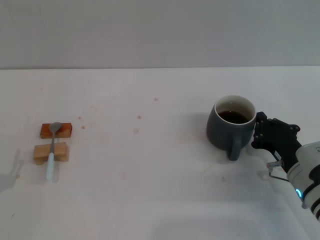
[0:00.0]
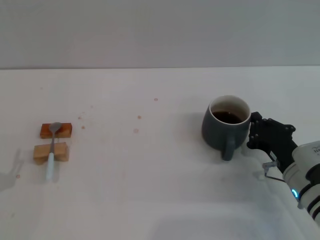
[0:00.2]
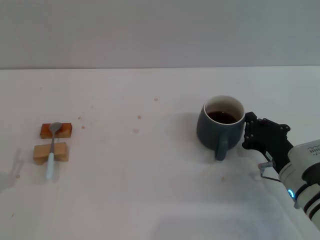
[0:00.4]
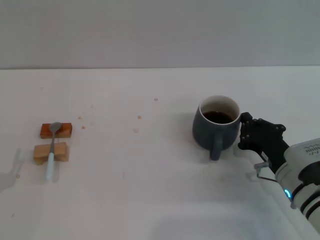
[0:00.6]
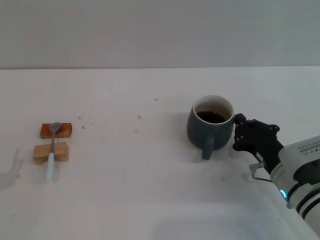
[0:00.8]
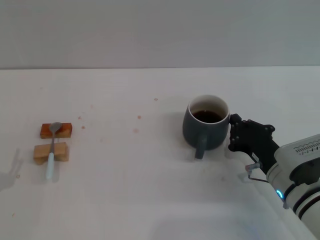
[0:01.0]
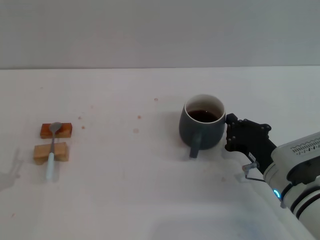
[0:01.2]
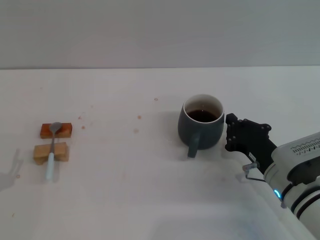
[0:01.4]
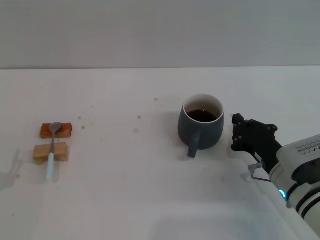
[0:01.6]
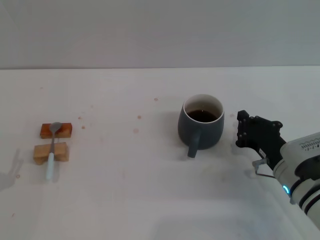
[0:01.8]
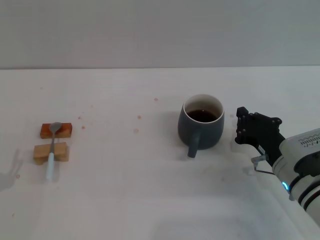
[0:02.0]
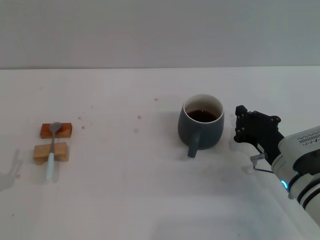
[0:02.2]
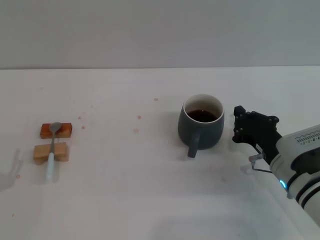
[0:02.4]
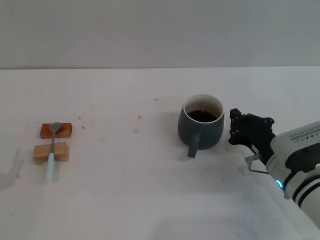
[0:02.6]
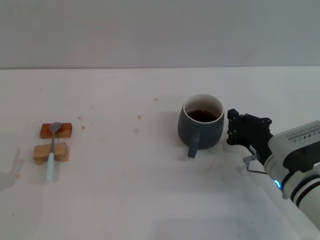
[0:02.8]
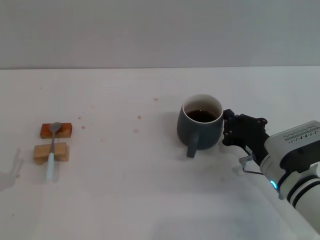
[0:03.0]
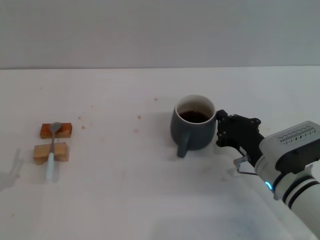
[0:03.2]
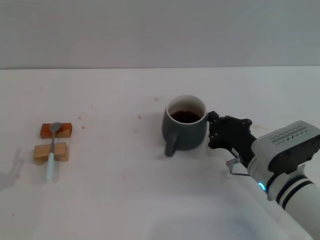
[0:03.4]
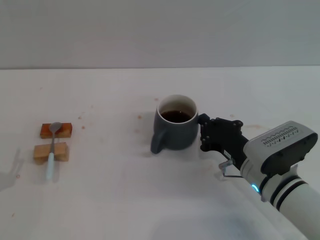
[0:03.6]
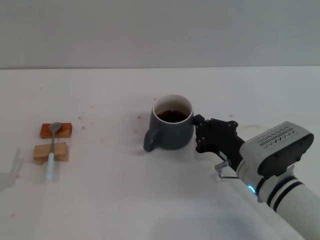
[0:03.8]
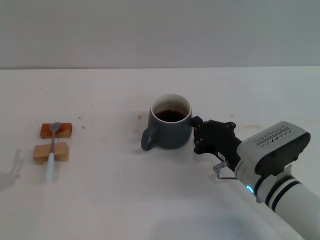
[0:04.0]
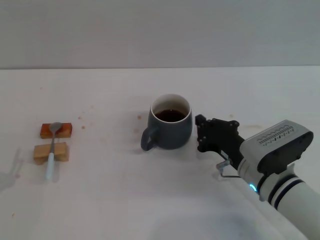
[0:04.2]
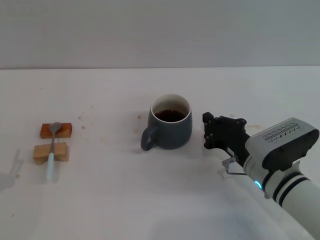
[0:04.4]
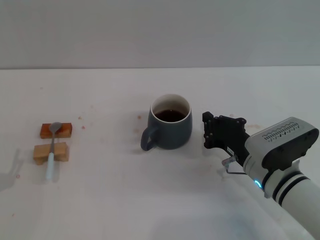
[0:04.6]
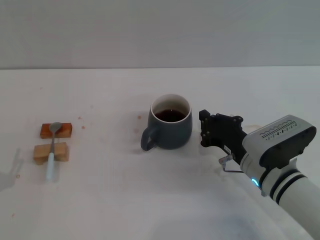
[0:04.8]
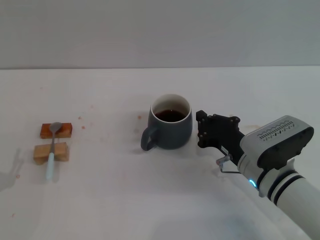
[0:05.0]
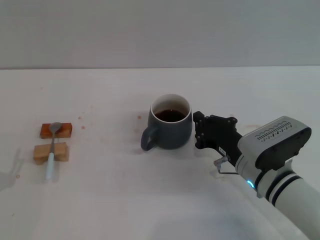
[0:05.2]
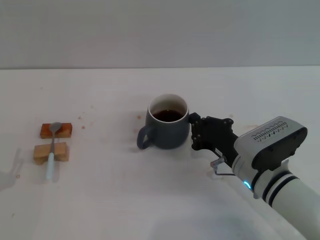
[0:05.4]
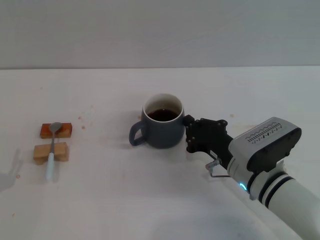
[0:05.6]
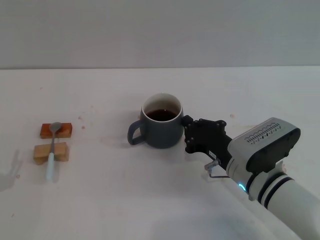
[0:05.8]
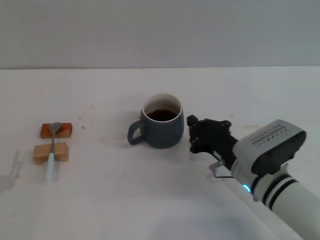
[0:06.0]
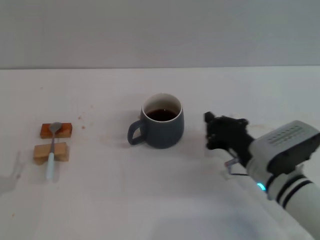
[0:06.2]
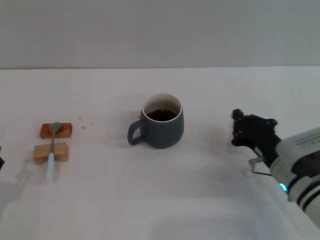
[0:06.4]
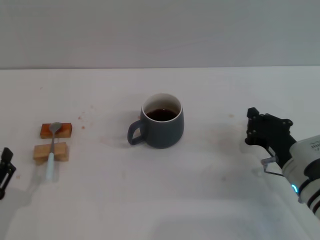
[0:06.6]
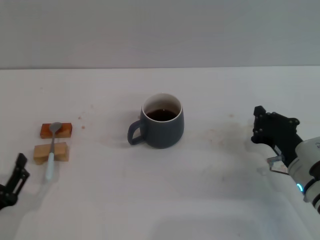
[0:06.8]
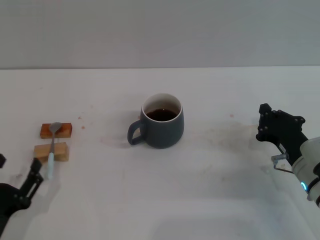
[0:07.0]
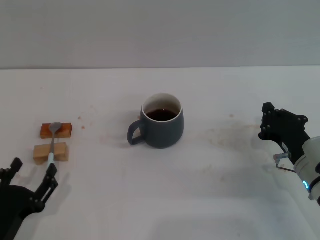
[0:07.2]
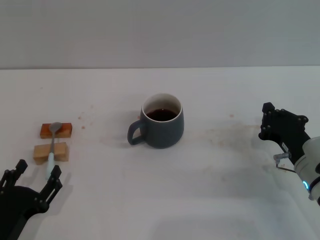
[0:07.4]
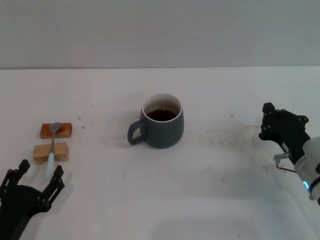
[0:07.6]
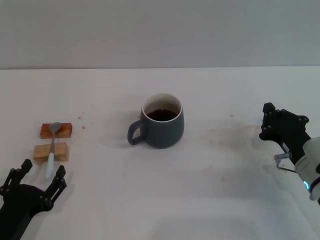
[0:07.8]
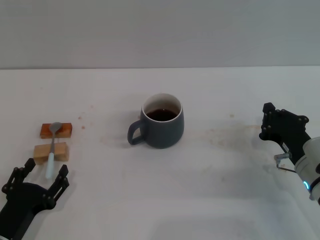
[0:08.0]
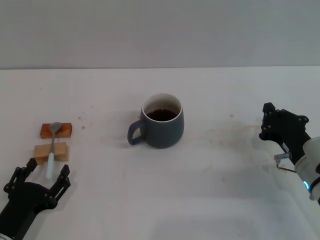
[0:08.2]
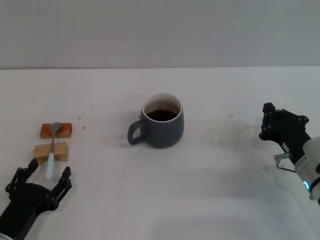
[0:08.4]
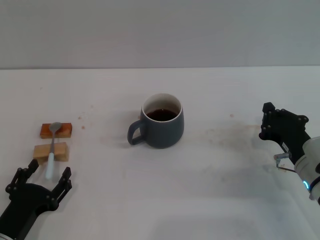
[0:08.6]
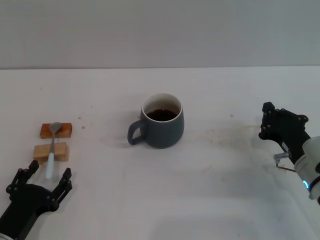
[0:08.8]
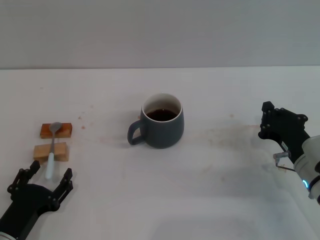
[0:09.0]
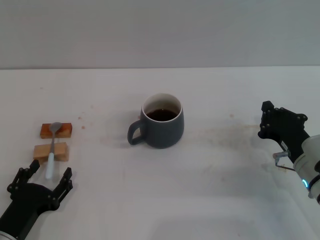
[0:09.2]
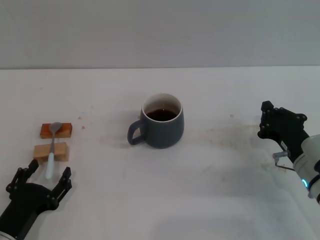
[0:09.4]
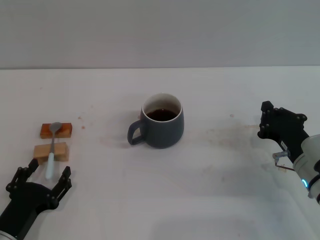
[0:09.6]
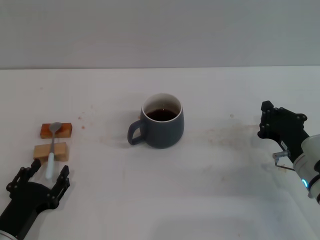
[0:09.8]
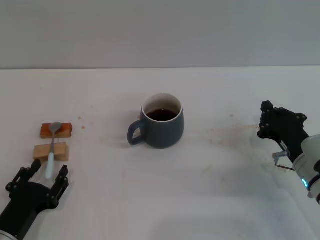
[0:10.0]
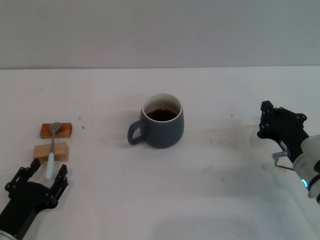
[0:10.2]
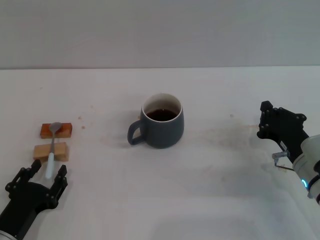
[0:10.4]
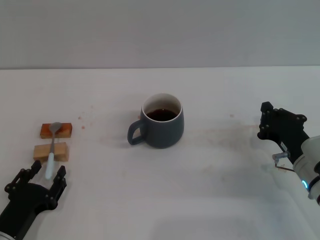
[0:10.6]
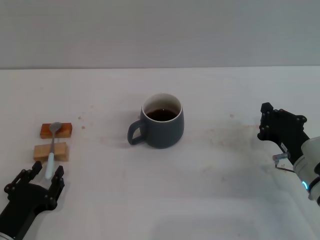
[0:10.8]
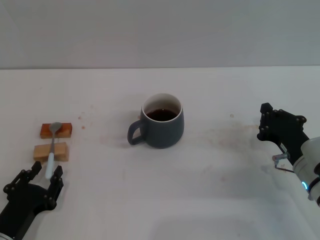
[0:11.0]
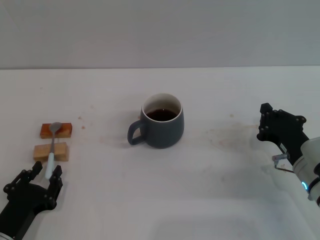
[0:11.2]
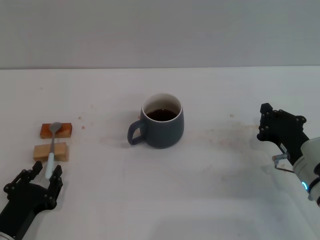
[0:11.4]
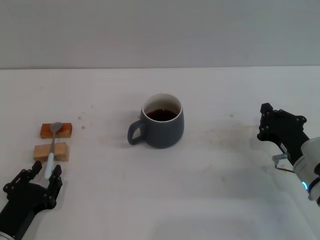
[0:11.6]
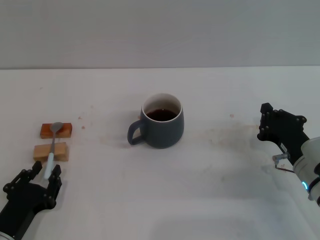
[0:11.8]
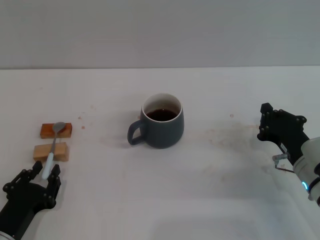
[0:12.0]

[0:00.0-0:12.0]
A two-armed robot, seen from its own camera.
Task of the whole recording: Move the grey cup to the center, lift the blue spoon, stir it three times in the cup, and put the spoon into the cup.
Step, 0:00.0 to 0:06.8: Move the cup with coffee to the center of view with the right gripper.
0:00.0 to 0:03.0: There are only small adjustments of the grippers.
0:03.0 to 0:06.0: There are only small adjustments of the grippers.
0:06.0 to 0:07.6: The two grippers go roughly 5 cm to the right.
0:07.6 to 0:09.0: The grippers move only a little.
0:09.0 to 0:10.4: Both grippers stay about where they are.
0:10.4 to 0:12.0: The left gripper closes its fingers.

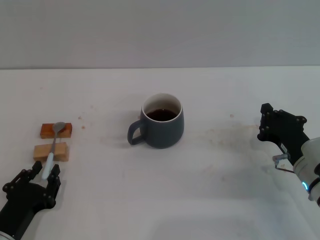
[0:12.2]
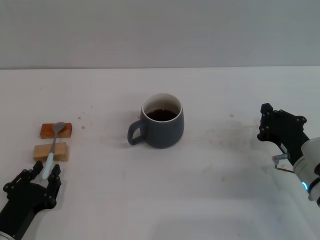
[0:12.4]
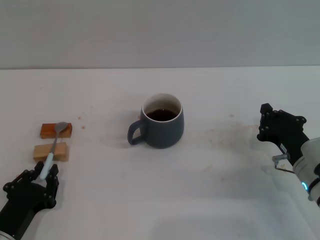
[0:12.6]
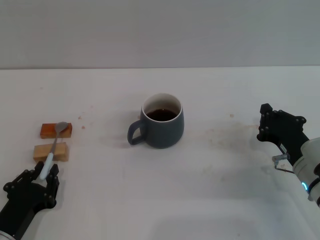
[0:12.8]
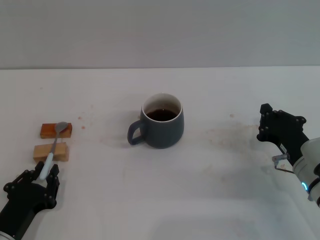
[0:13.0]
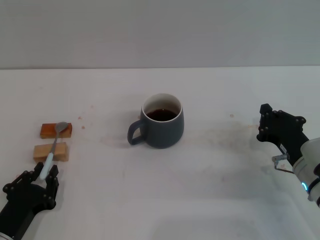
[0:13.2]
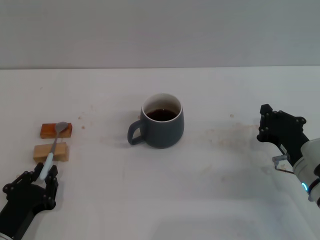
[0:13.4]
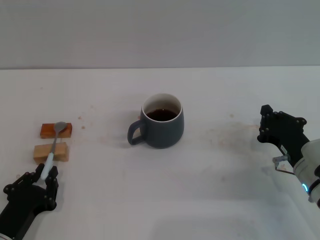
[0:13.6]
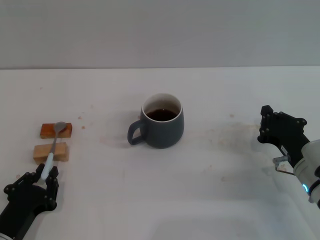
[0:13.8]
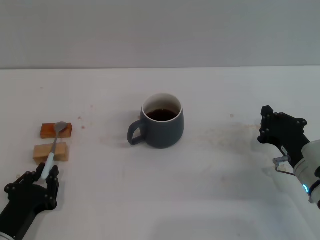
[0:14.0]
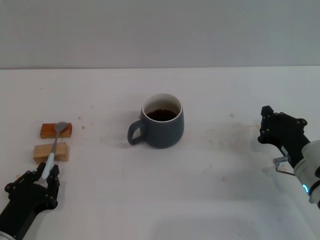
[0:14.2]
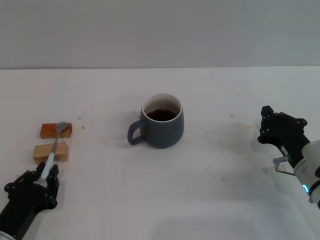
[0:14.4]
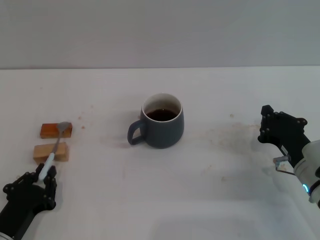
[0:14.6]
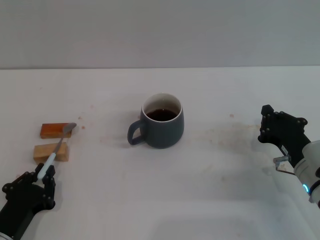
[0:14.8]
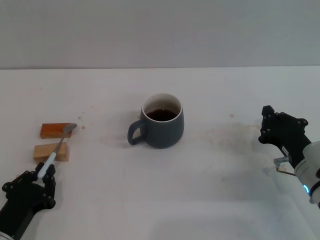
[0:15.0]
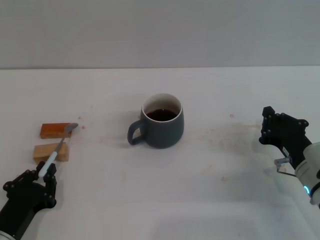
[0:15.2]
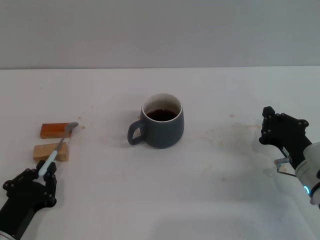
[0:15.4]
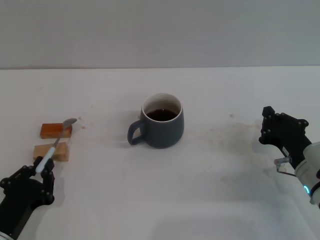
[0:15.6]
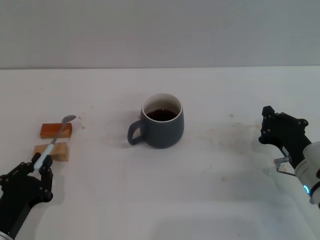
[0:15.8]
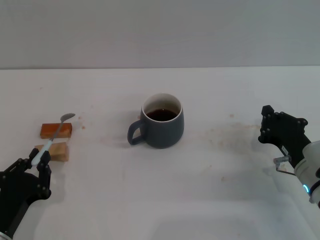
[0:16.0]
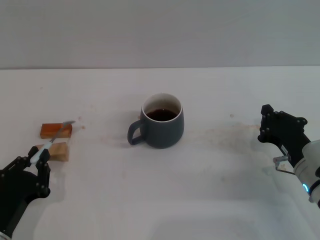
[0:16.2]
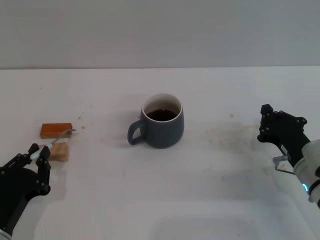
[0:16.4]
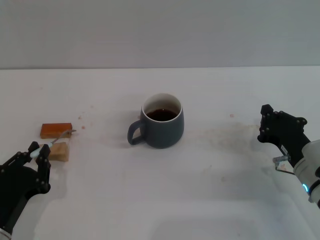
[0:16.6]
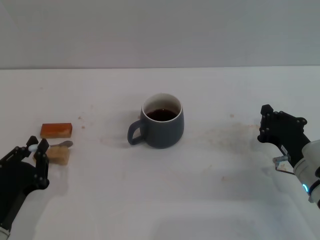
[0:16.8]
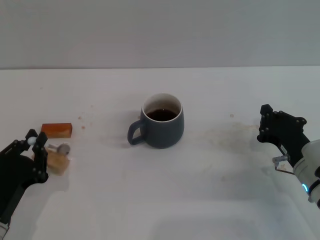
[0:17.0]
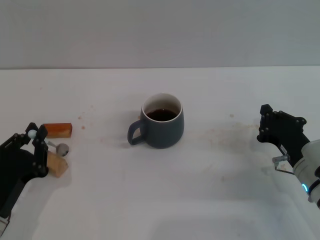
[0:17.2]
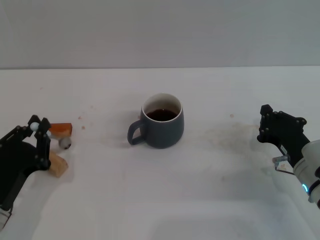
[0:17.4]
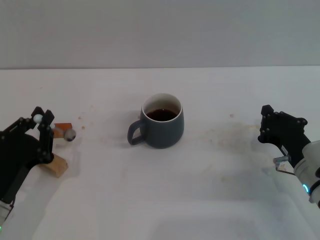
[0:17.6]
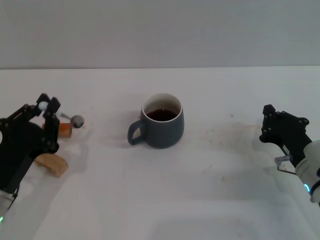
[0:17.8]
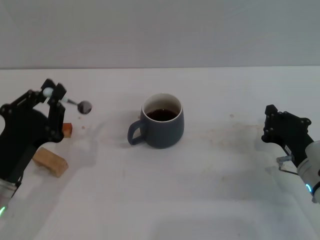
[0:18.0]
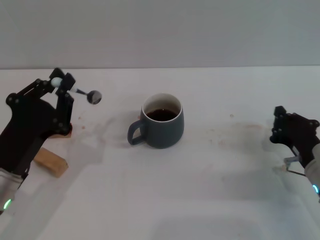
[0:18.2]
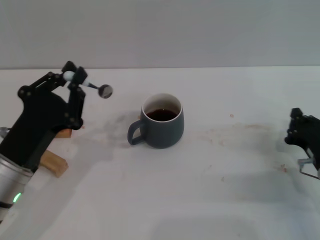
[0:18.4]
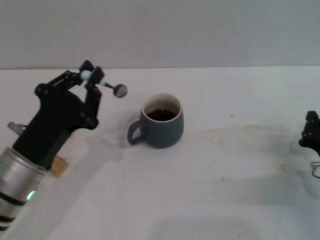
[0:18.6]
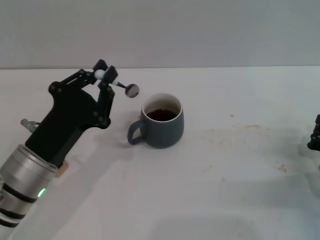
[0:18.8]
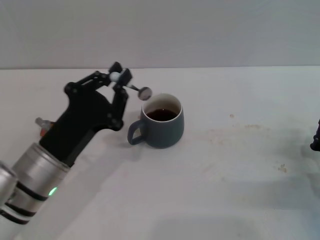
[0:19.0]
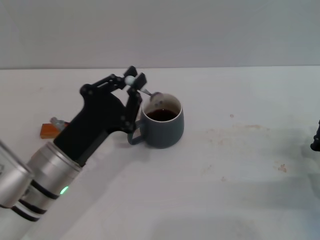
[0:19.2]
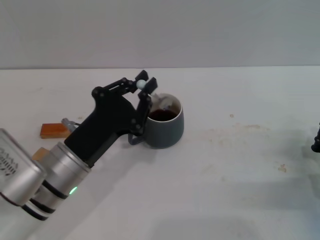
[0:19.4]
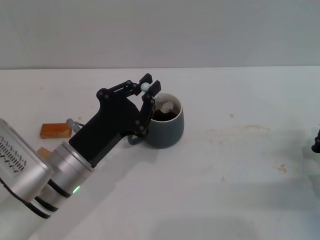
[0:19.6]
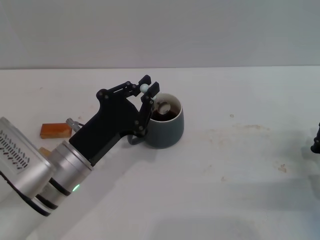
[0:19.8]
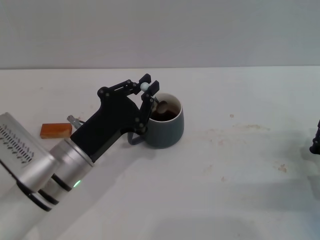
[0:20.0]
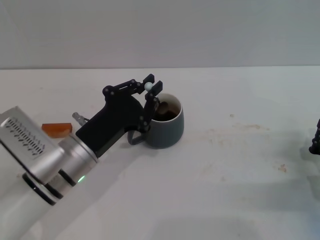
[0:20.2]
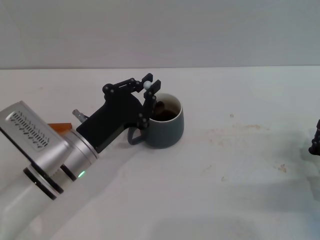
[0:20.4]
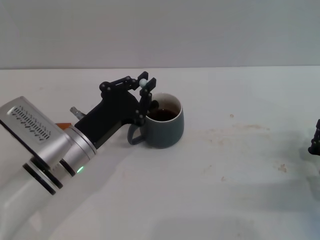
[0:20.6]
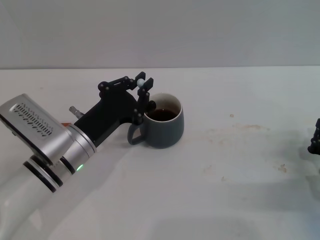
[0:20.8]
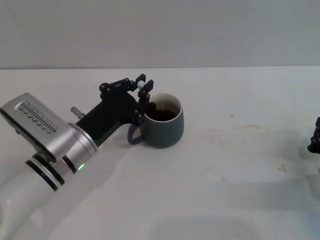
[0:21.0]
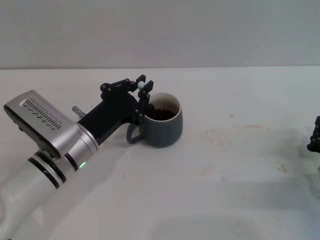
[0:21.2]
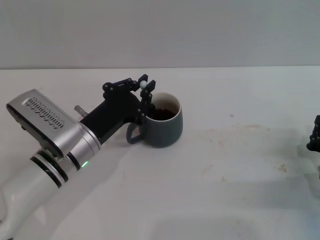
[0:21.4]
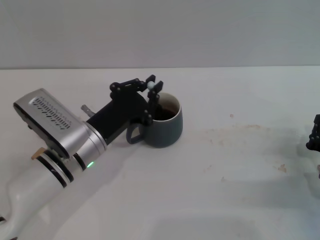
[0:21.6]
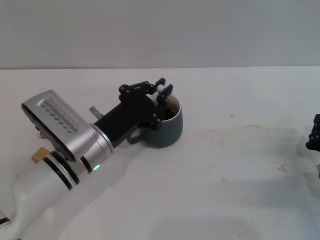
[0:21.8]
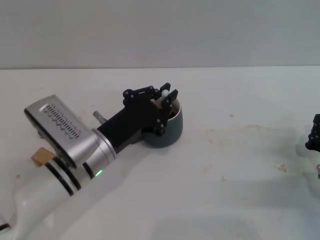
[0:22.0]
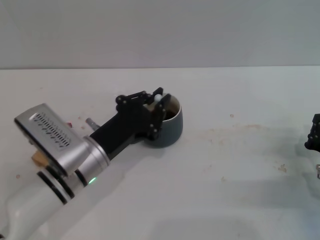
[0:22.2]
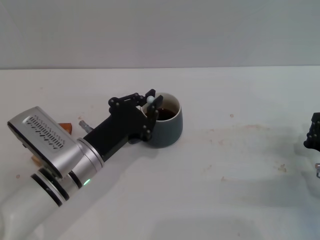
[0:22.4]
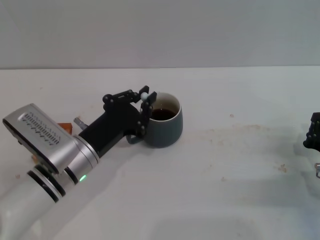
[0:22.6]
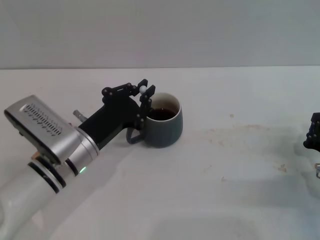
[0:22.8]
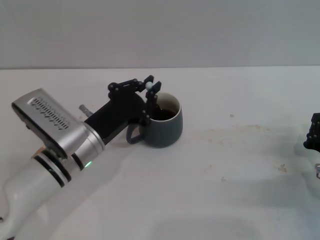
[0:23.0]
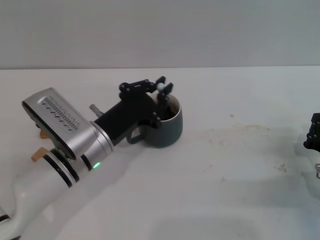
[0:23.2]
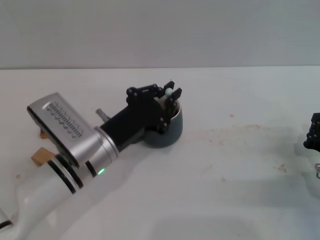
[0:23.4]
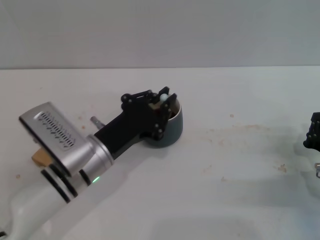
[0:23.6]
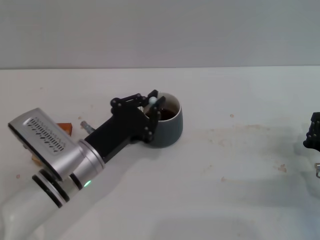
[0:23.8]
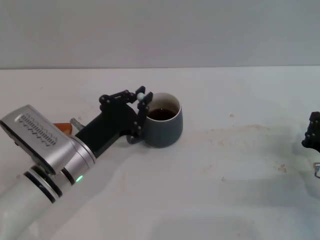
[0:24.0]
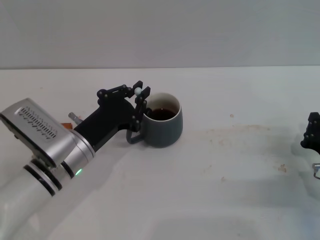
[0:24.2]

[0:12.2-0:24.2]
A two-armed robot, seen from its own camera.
Task of the whole recording: Move the grey cup to the center, lift the blue spoon, stir it three times in the cup, and put the spoon into the cup.
Step, 0:12.2 to 0:18.4: Pick up the spoon with the left gripper.
0:12.2 to 0:15.2: Both grippers stay put.
0:15.2 to 0:16.6: The grippers make only small movements.
0:16.6 to 0:18.2: The left gripper goes some 10 cm upward and forward.
0:18.2 to 0:19.8: The left gripper goes about 5 cm to the right. Meanwhile the right gripper shifts by some 5 cm.
0:19.8 to 0:24.2: The grippers stay close to where they were, moving slightly.
